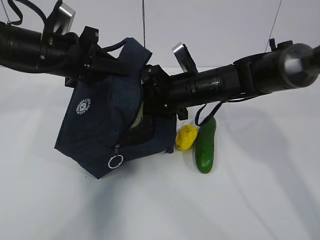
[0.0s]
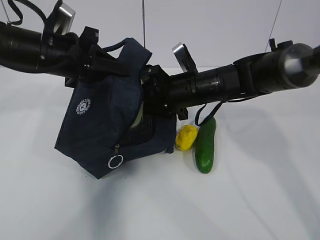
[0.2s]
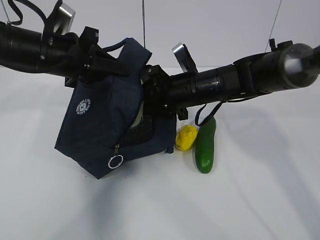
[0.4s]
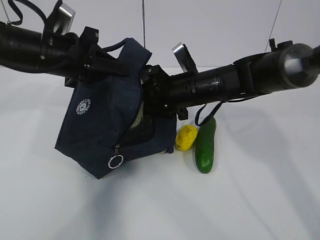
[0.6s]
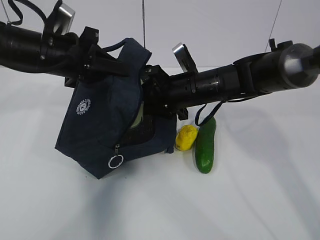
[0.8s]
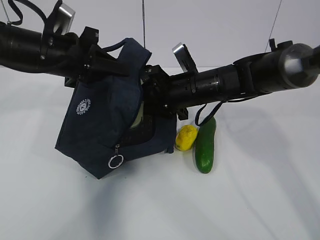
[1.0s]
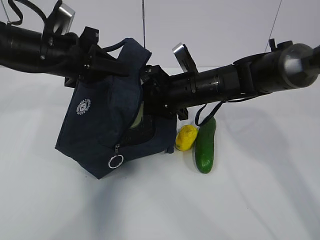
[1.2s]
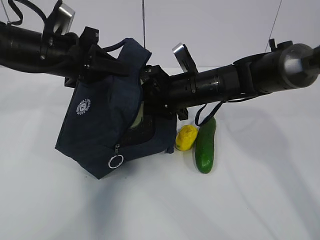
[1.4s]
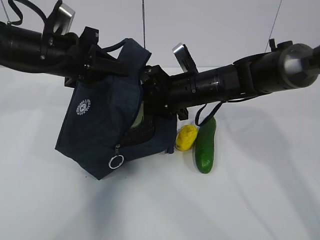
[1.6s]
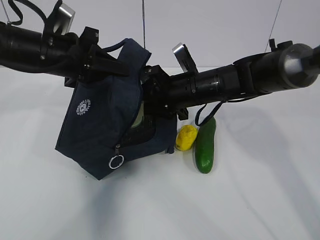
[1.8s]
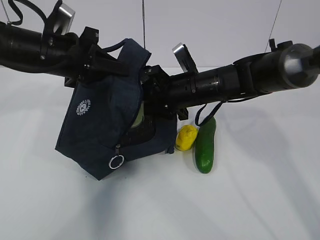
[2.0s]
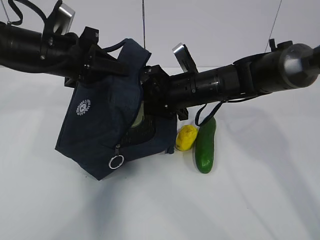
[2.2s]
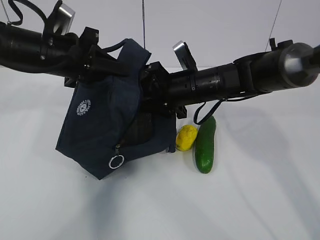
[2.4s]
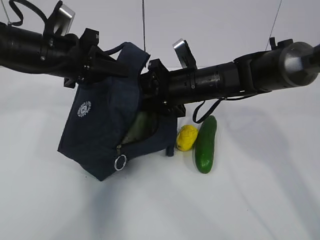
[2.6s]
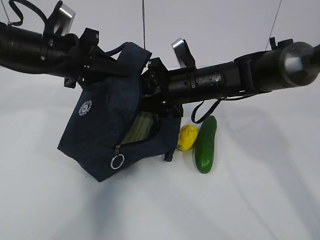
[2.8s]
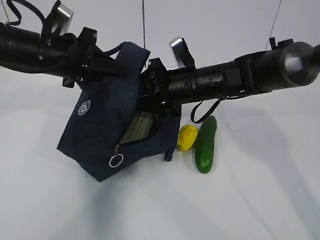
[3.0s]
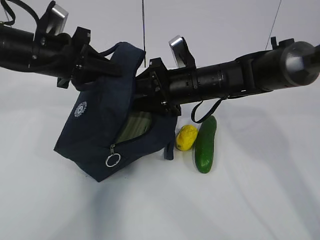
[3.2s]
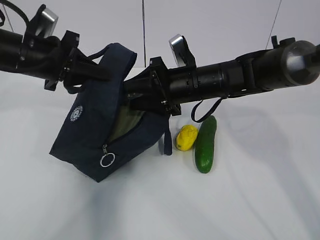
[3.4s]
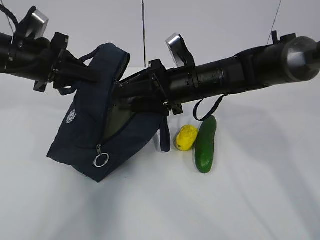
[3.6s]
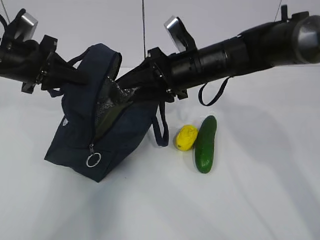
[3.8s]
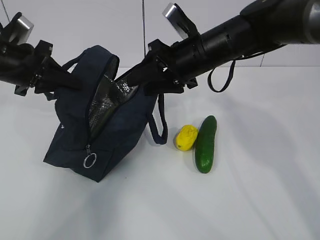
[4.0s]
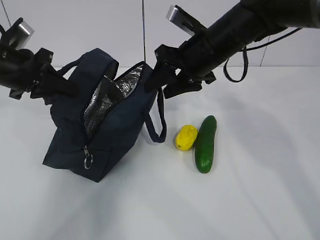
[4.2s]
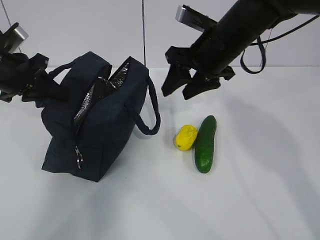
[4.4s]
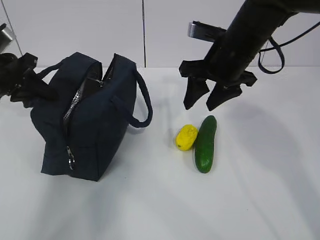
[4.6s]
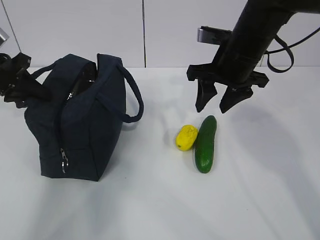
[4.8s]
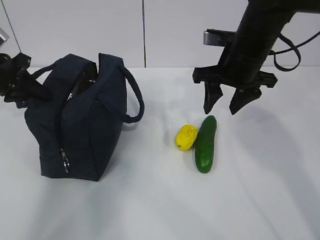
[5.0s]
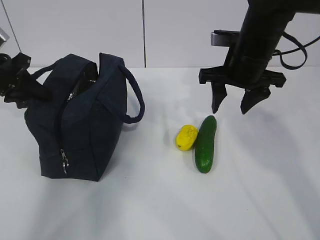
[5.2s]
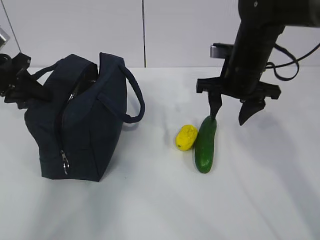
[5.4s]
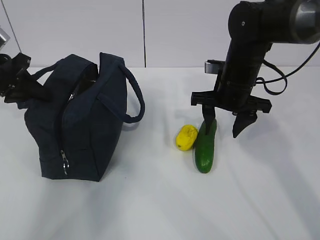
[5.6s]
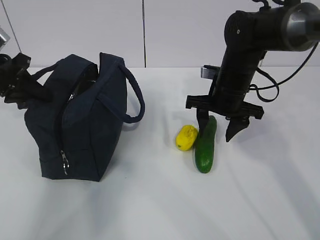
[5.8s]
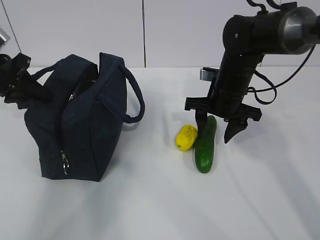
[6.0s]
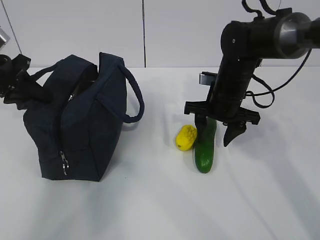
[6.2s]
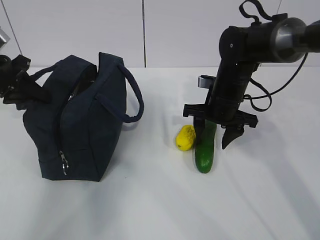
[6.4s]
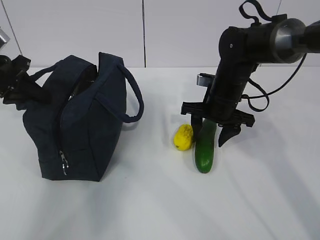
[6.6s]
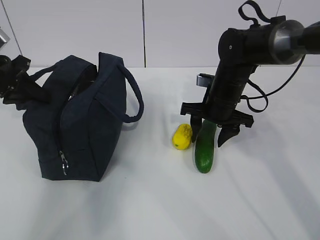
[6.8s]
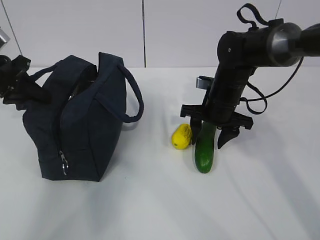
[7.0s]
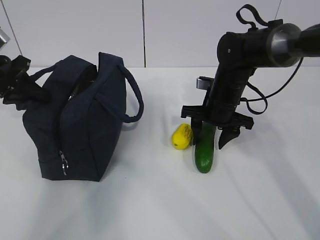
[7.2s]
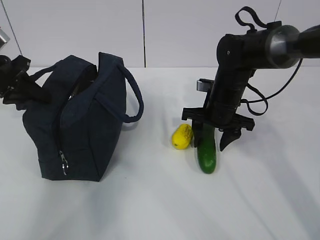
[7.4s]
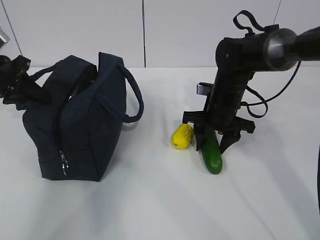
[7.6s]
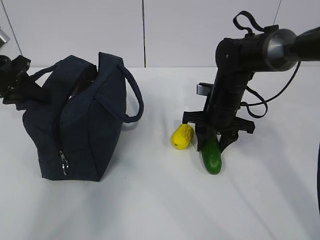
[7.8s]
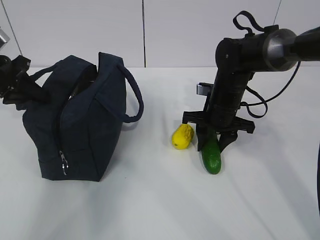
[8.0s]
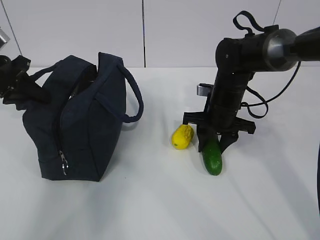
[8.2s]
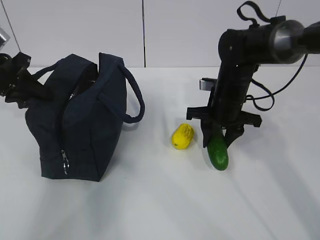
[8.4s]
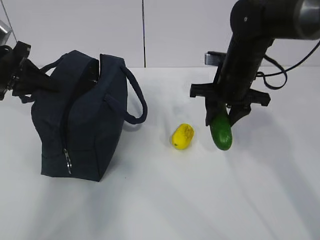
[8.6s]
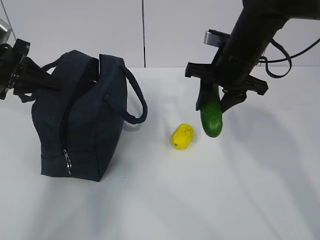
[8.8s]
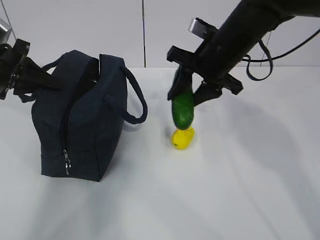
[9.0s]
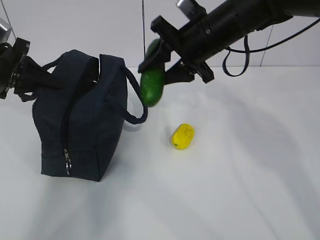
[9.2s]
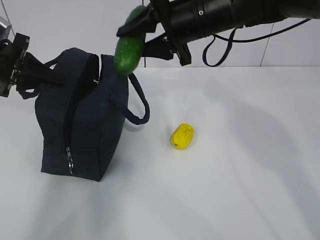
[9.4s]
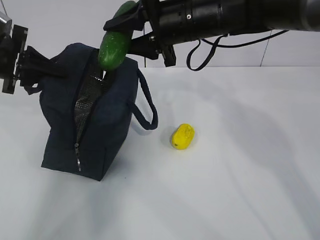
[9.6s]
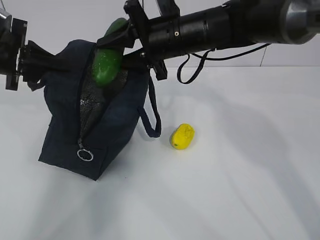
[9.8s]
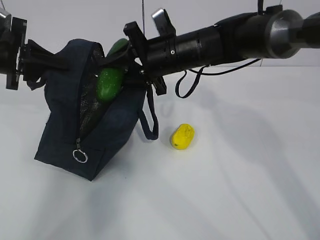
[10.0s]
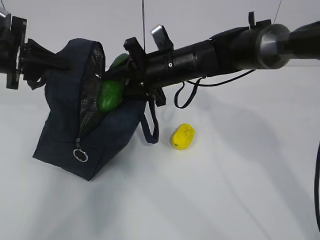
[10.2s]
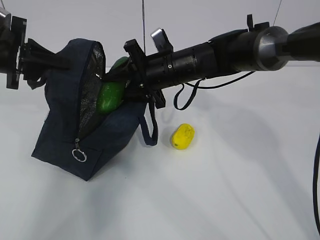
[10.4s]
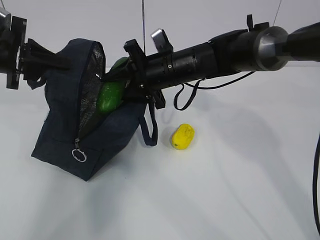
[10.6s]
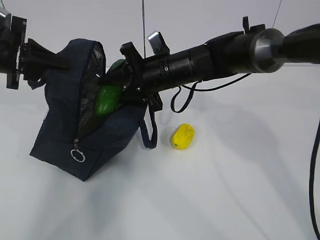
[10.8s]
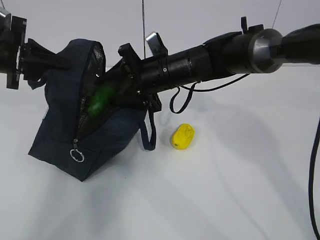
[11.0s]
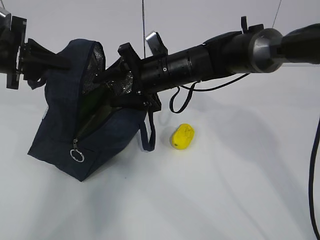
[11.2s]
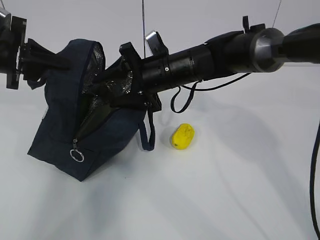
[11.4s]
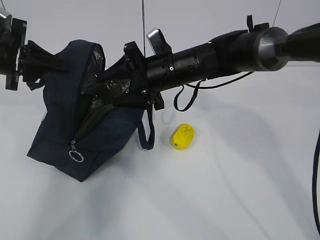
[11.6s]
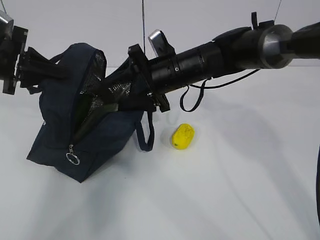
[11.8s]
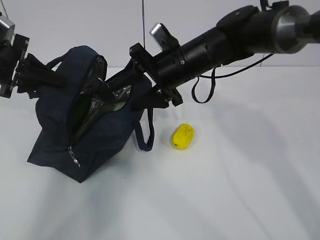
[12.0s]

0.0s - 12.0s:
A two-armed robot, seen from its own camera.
Step, 0.0s - 3.4s: Place the box into the package with the right gripper.
Step, 3.8s - 8.2s: Grasp the cucumber with the right gripper.
Step, 8.4s - 11.8s: Place the cucumber into the package with the right gripper.
0.0s - 1.6s: Both grippers stay put.
1.6s - 3.0s: The grippers stay close to where they were, moving slightly.
3.0s - 4.4s: The left gripper travels to the left by approximately 10 cm. The right gripper heads upward, covering some 10 cm.
4.4s - 6.0s: The right gripper heads downward, covering some 10 cm.
6.0s - 7.6s: The grippers move only a little.
7.6s - 9.0s: The right gripper travels upward by some 10 cm.
9.0s - 10.4s: The right gripper goes about 10 cm to the left and downward.
10.4s - 12.0s: The grippers stay close to where they were, moving slightly.

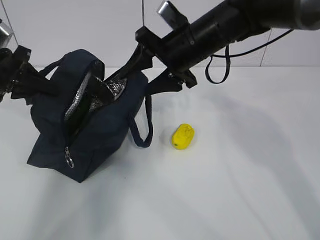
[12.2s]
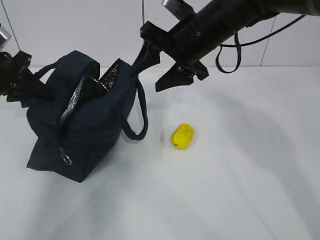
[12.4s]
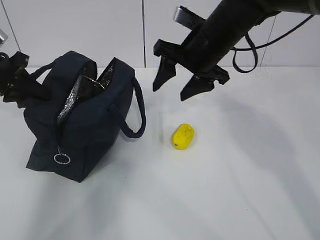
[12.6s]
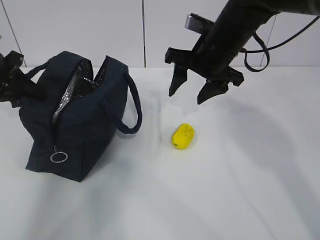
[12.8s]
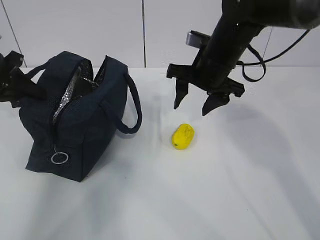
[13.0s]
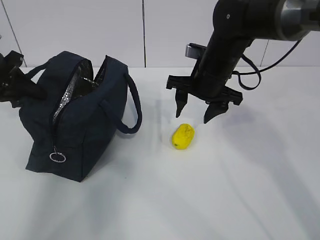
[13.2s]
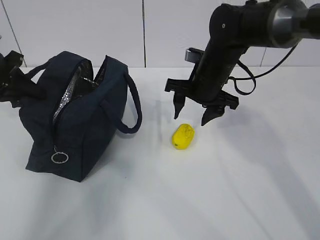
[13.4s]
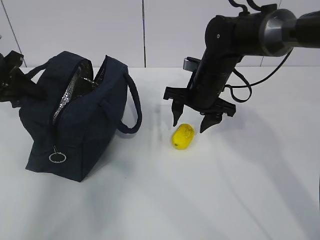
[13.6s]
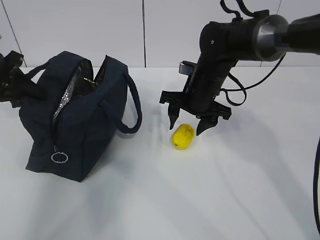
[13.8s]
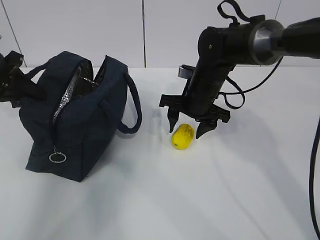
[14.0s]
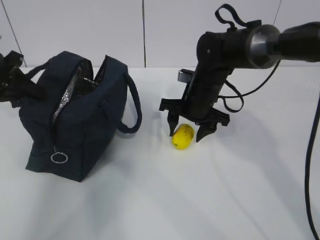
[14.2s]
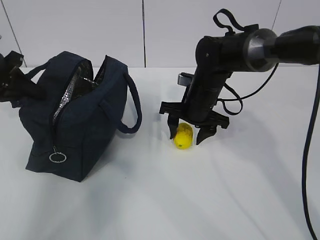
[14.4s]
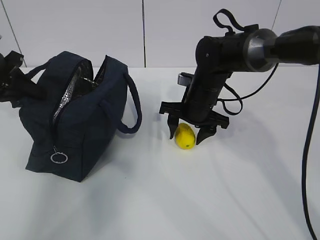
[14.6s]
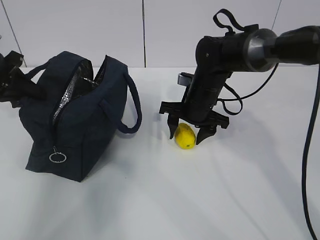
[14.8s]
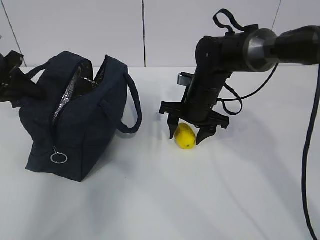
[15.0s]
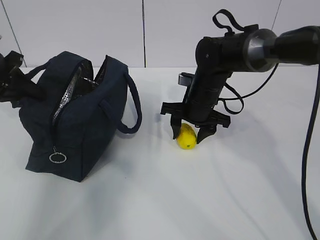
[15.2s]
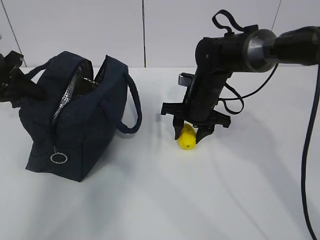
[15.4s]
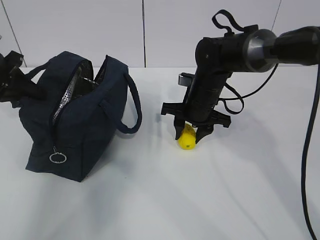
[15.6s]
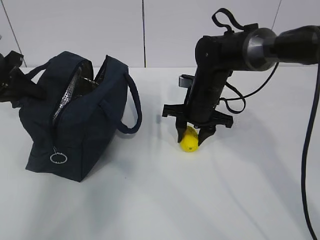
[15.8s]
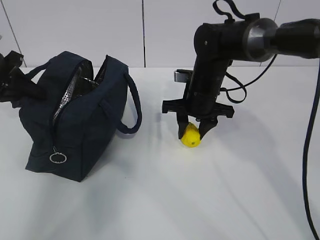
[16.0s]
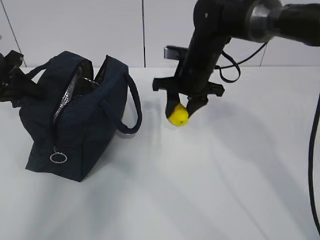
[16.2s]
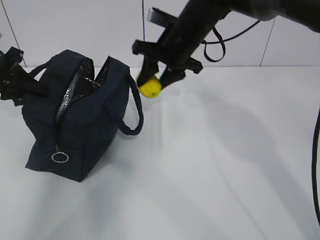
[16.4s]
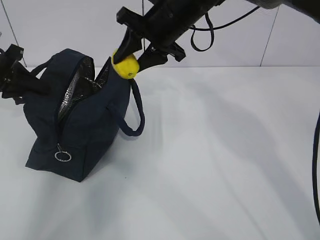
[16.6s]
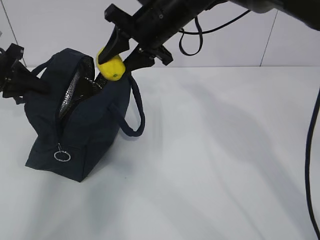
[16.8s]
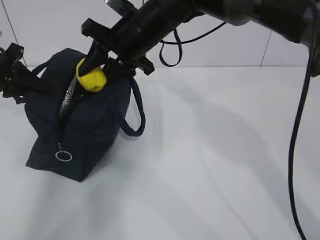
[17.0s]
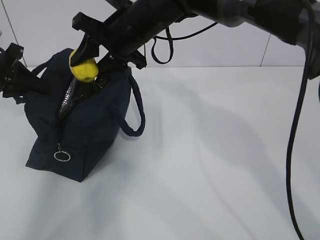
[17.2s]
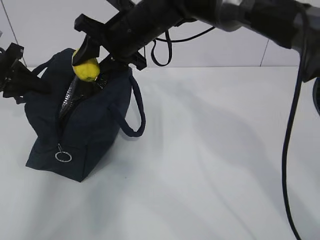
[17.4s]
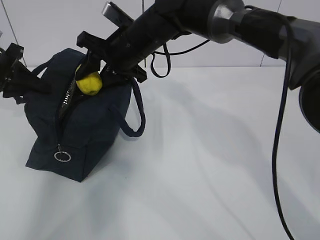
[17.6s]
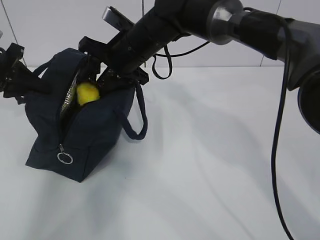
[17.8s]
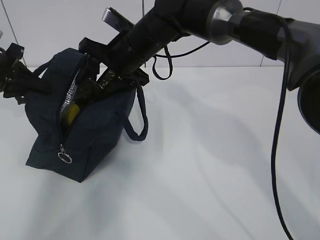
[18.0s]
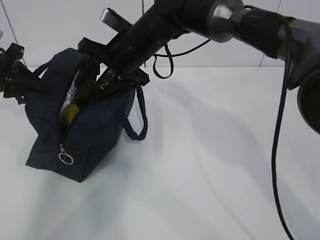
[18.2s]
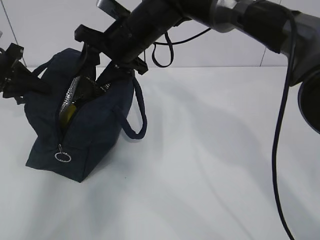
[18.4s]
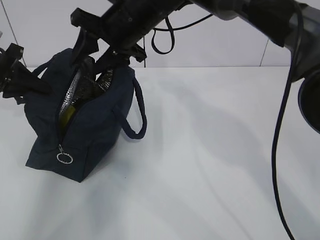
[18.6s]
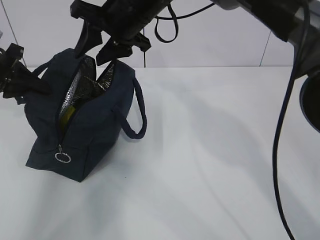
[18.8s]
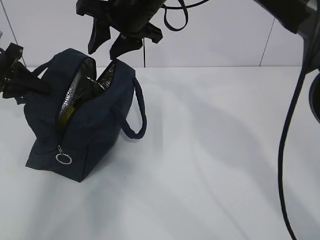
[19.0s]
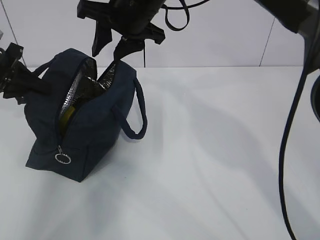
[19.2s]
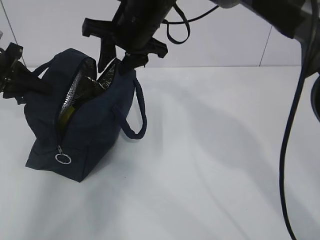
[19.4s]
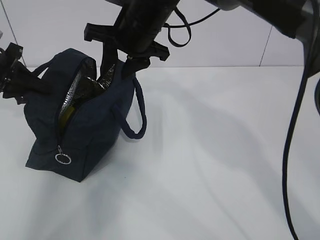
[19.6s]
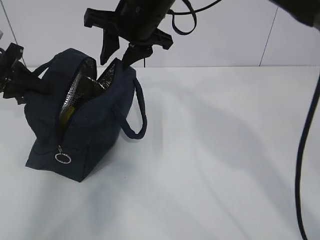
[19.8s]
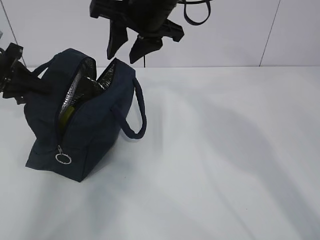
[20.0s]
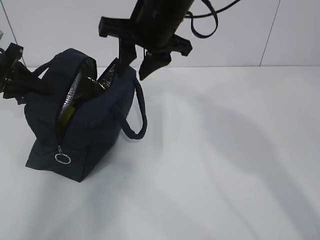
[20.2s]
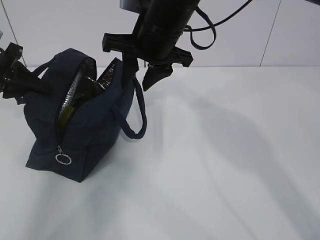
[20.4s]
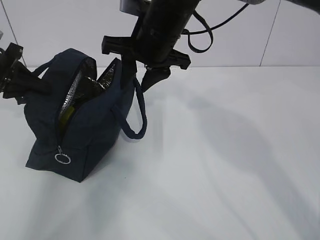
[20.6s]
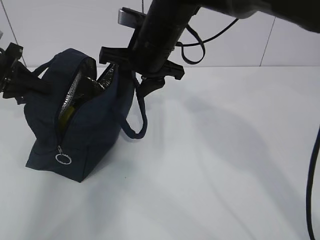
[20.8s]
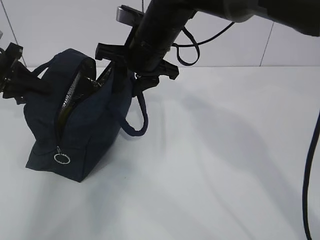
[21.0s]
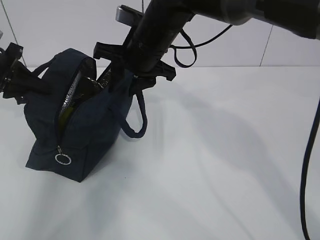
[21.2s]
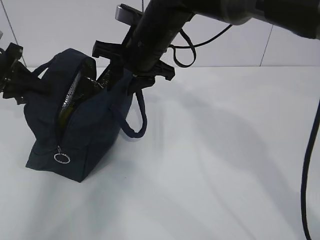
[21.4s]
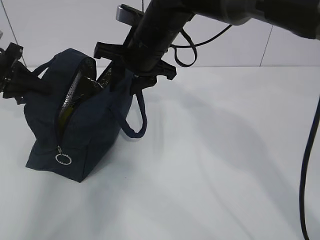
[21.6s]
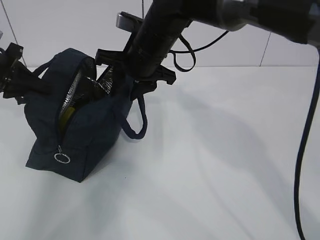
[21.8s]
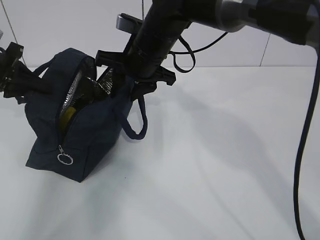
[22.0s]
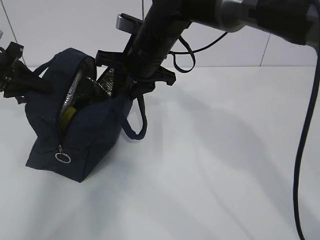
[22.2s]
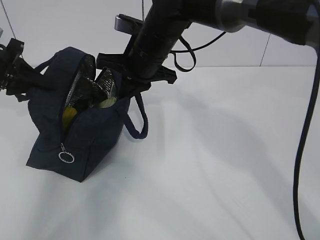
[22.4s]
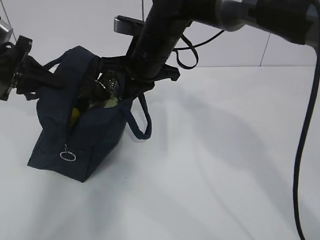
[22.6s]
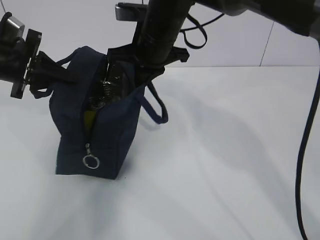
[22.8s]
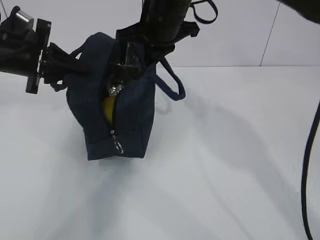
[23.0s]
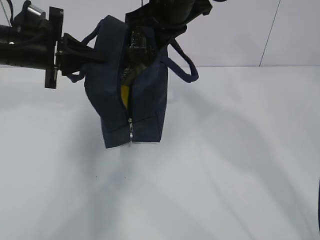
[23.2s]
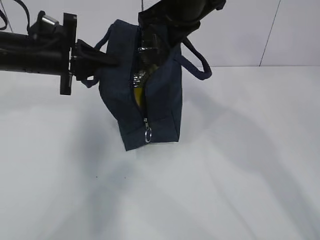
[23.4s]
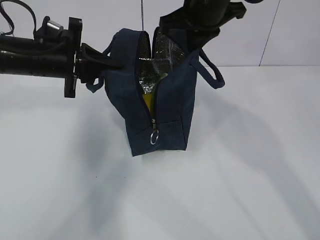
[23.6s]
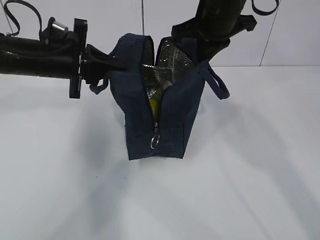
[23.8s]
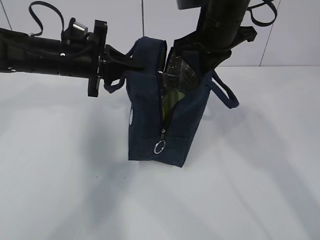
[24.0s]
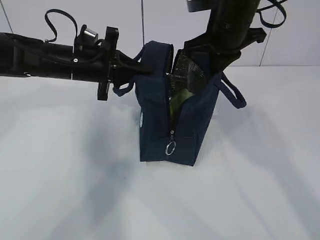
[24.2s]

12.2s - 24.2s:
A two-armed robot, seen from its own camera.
Step, 12.2s - 15.6s: Grasp the lemon with the right gripper.
Step, 15.8s - 17.8s: Place the lemon into the package with the right gripper.
12.2s - 13.8s: The right gripper is displaced downward by roughly 10 cm.
13.8s - 15.2s: The grippers make only small movements.
15.2s - 16.6s: The right gripper travels upward by roughly 15 cm.
16.6s - 18.2s: The right gripper is displaced to the left by about 5 cm.
18.2s - 19.8s: The right gripper goes roughly 5 cm upward.
19.8s - 21.2s: There are only small adjustments of the grippers.
21.2s - 22.6s: The right gripper closes its fingers.
22.6s - 24.2s: Both grippers move to the right, some 15 cm.
